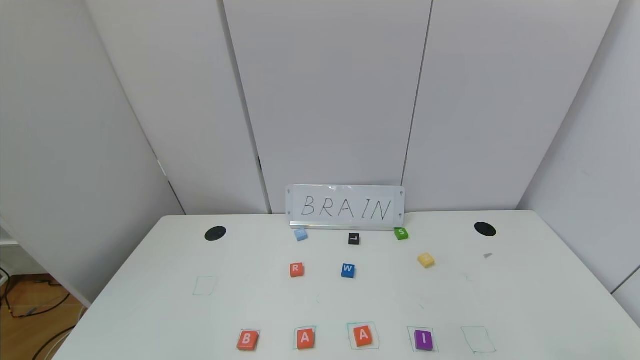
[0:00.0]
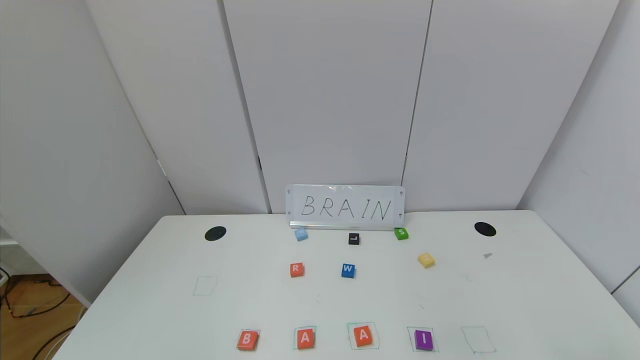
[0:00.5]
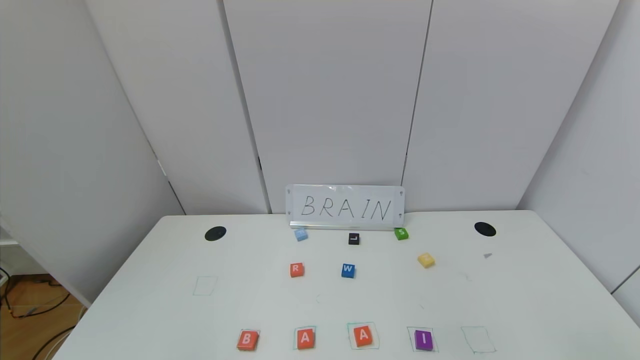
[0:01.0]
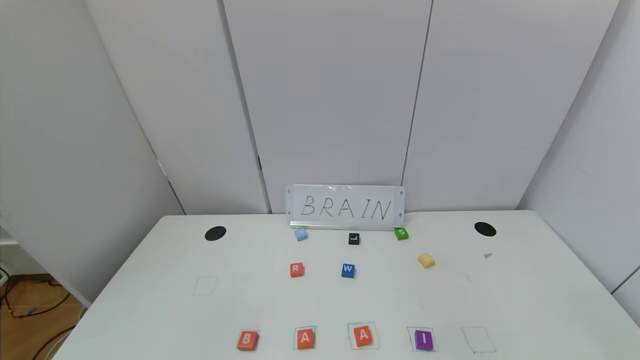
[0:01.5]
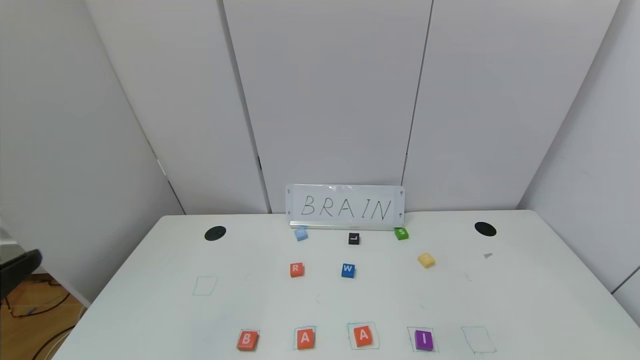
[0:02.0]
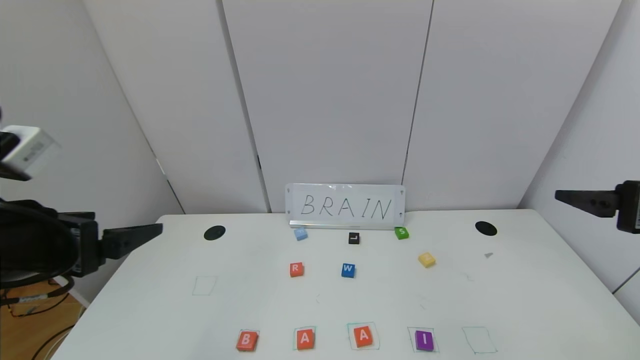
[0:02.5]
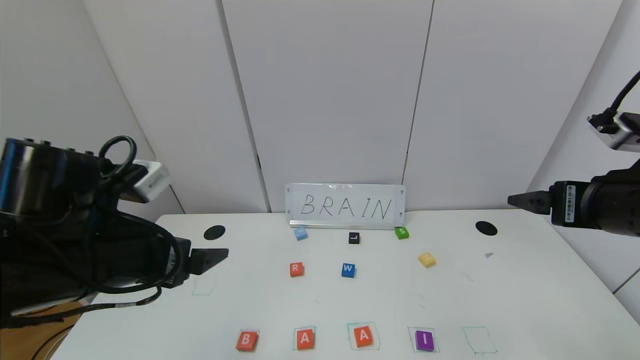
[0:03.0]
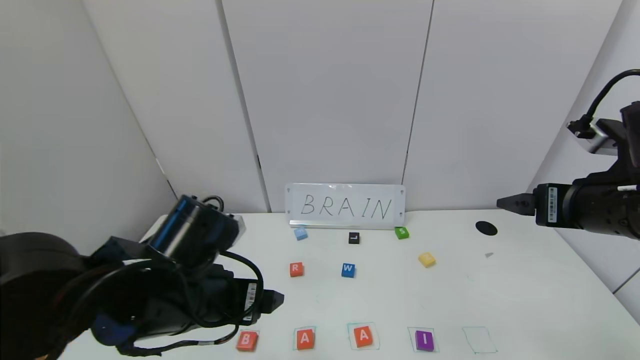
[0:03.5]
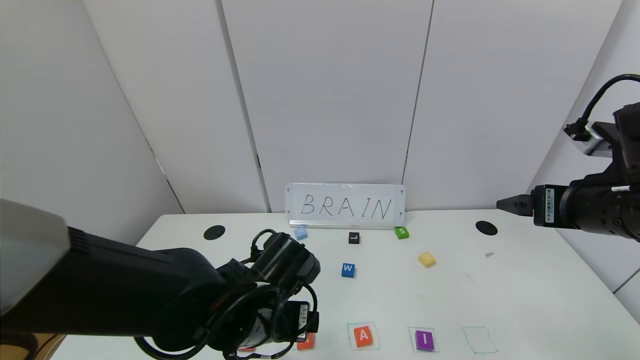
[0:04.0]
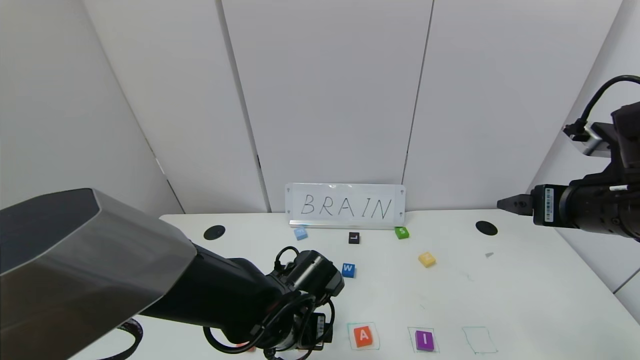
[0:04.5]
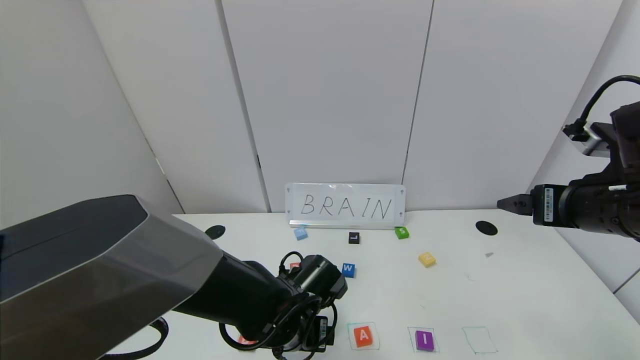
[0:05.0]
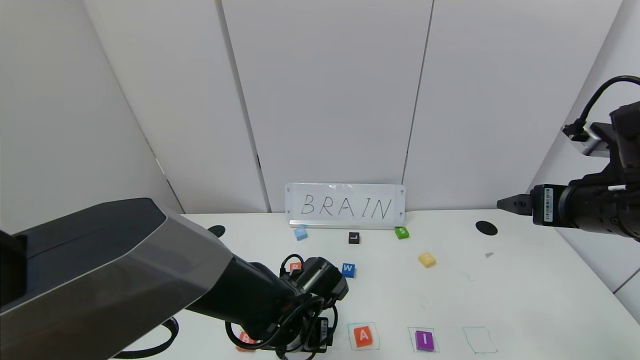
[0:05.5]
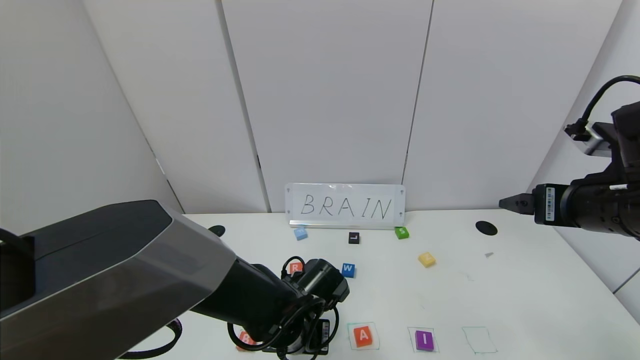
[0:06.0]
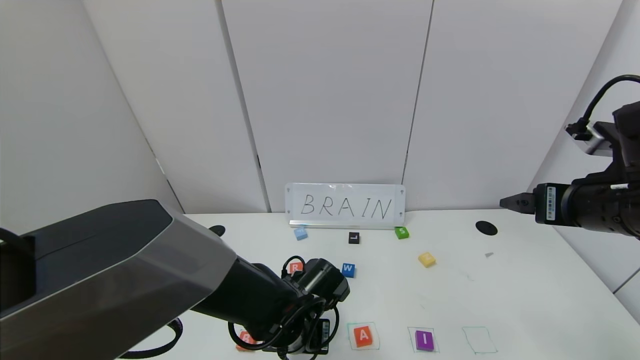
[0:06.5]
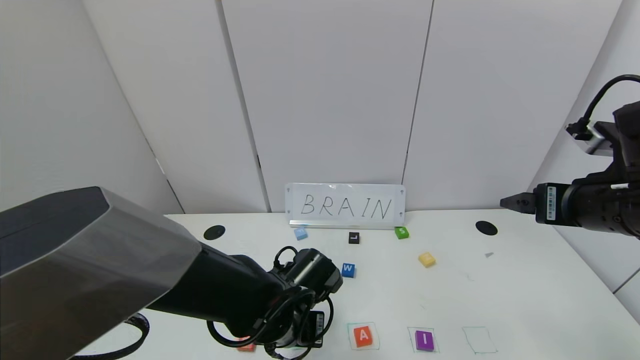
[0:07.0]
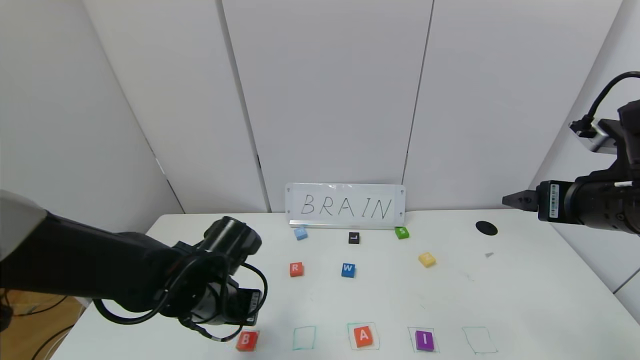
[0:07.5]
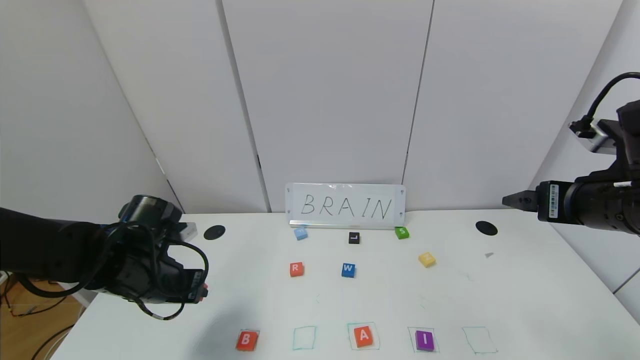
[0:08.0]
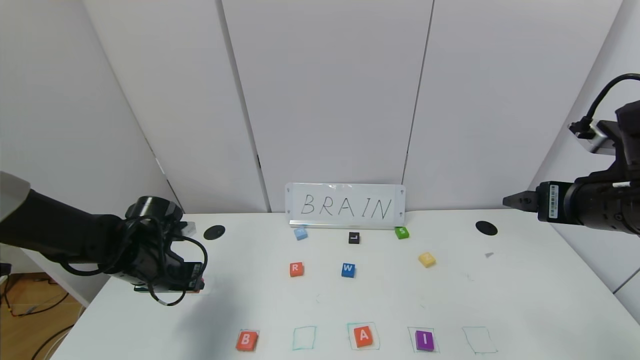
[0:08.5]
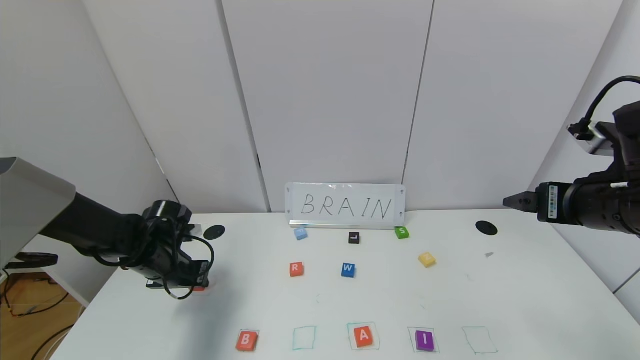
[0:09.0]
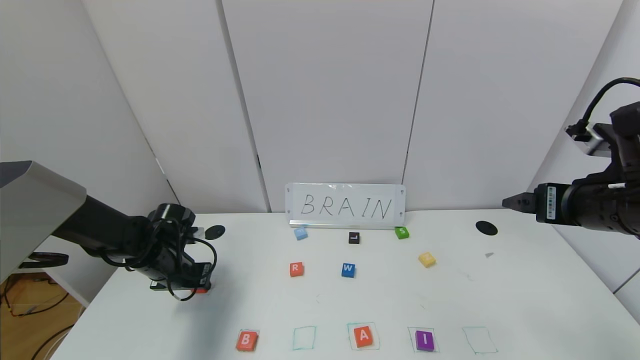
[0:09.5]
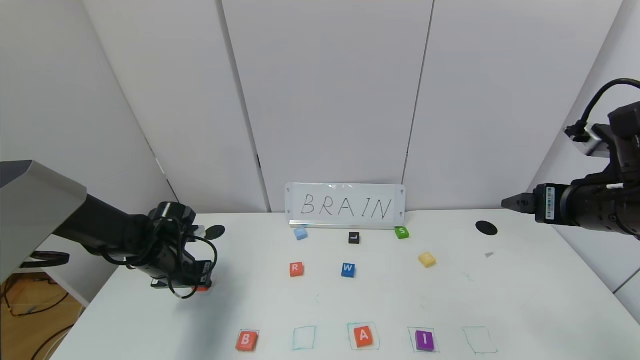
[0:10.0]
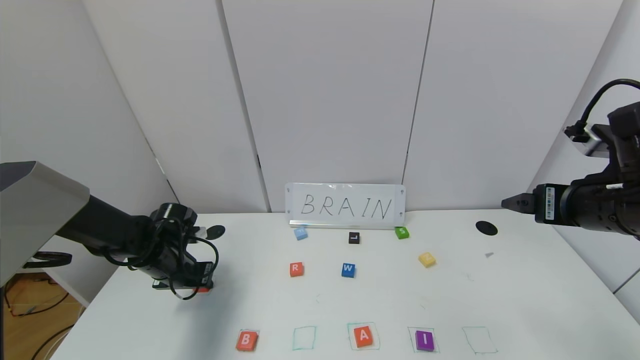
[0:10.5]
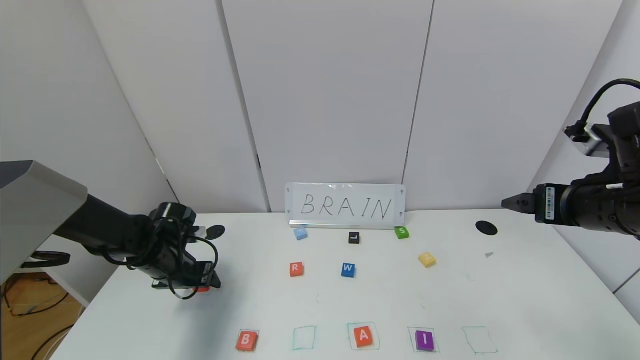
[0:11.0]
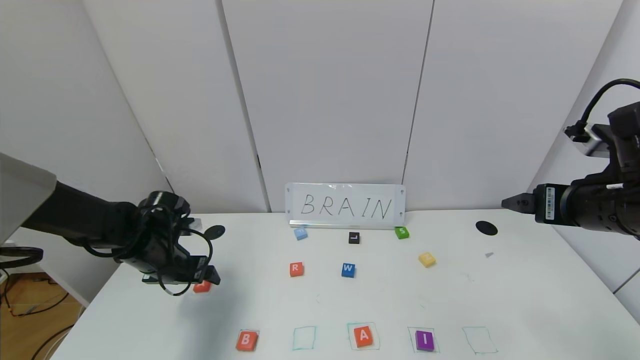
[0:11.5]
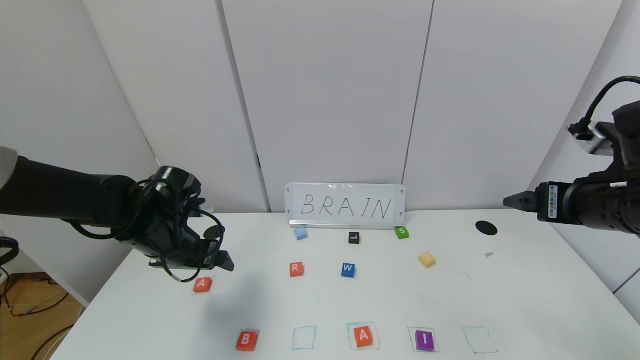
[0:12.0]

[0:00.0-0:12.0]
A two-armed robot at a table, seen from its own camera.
Task of the whole recording: use the gripper to find blocks with the letters b, a, a, and i on the table and arrange them into BAAI, then find r and N and turn the arranged baai into brian.
Step, 0:00.0 to 0:11.0: Move the block A out of the second location.
0:02.0 to 0:04.0: The left gripper is displaced to the right, forward and downward by about 30 cm; the right gripper goes about 15 cm forward.
0:04.0 to 0:06.0: The left gripper shifts about 5 cm downward, and closes its fingers.
0:06.0 to 0:08.0: The left gripper is displaced to the left and upward by about 20 cm.
0:08.0 to 0:10.0: The left gripper heads forward and downward, covering approximately 10 cm.
0:10.0 to 0:12.0: The left gripper moves upward, approximately 10 cm, and opens up.

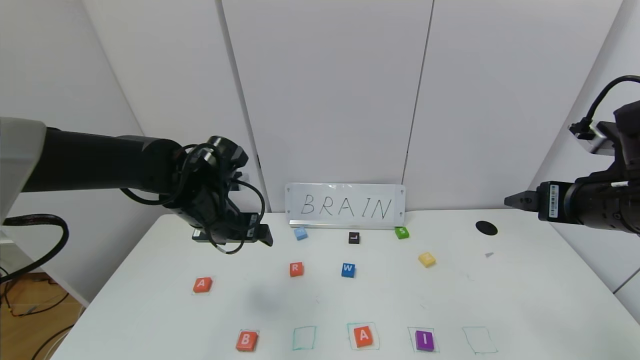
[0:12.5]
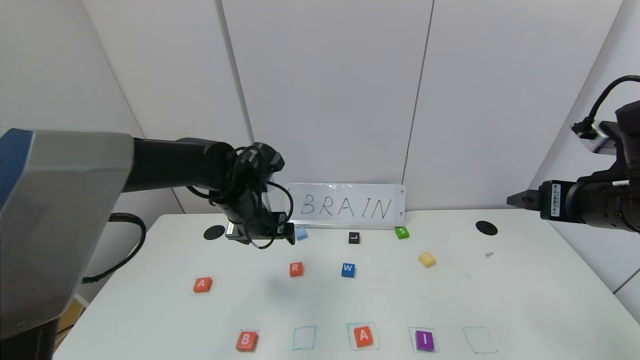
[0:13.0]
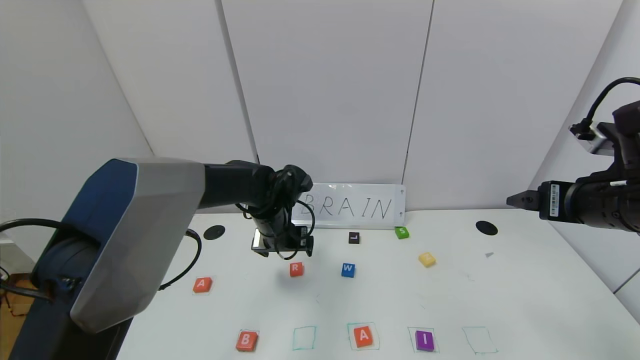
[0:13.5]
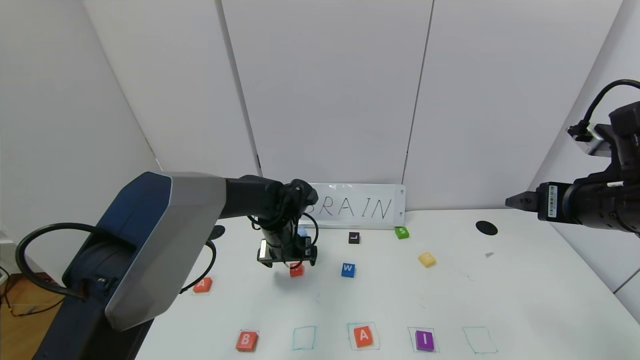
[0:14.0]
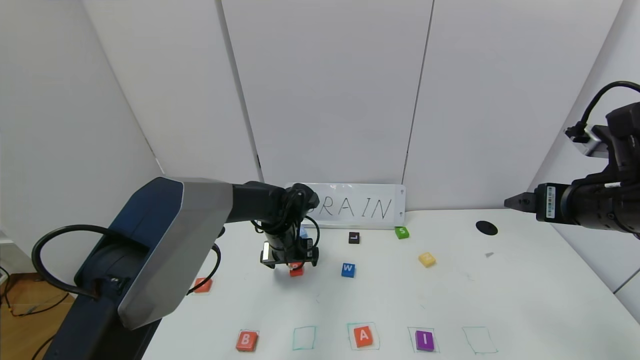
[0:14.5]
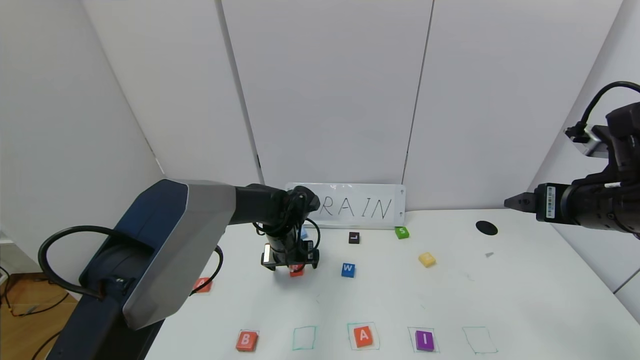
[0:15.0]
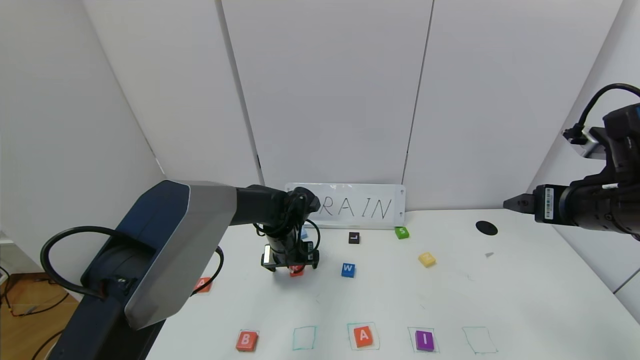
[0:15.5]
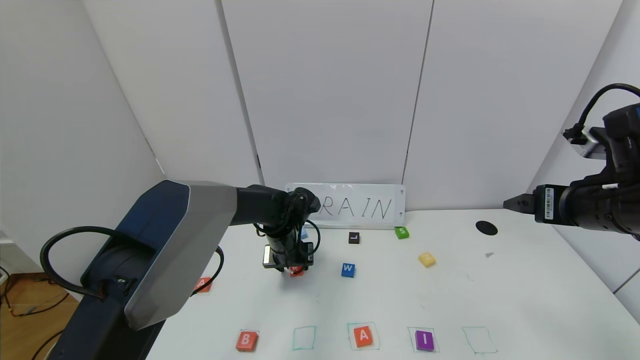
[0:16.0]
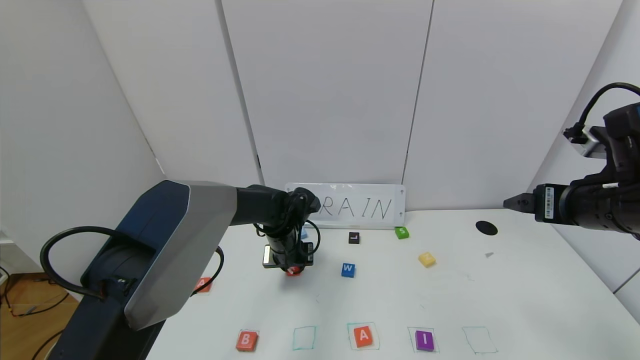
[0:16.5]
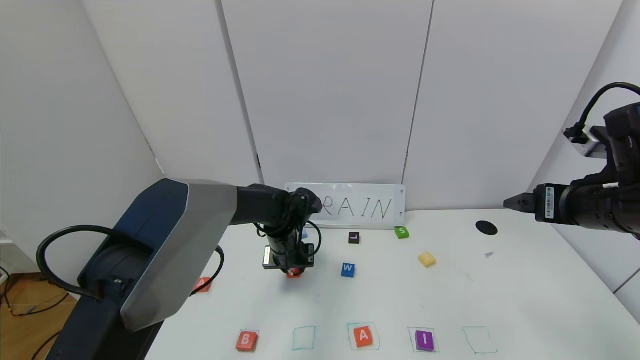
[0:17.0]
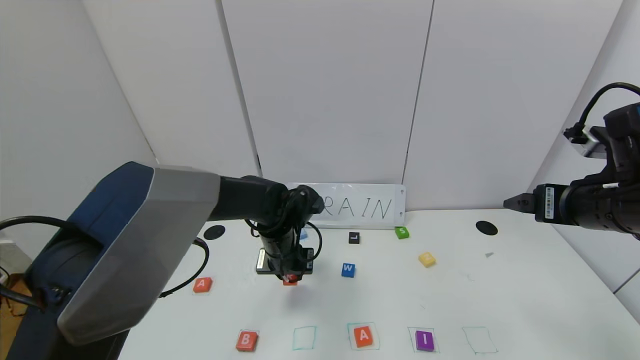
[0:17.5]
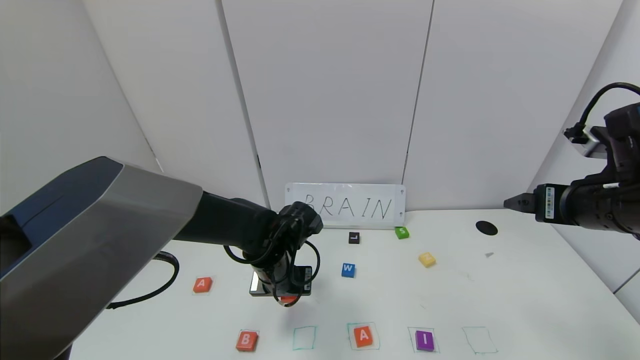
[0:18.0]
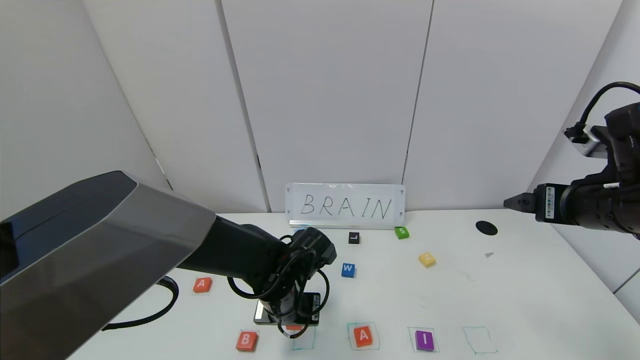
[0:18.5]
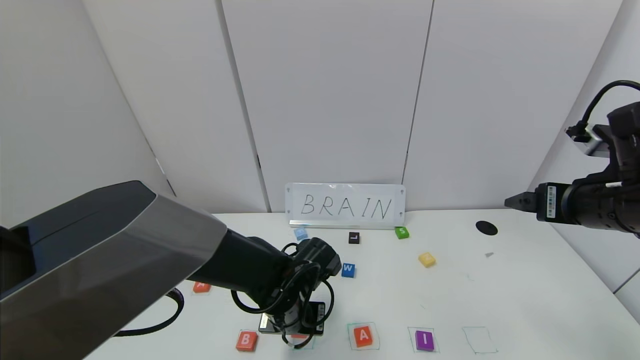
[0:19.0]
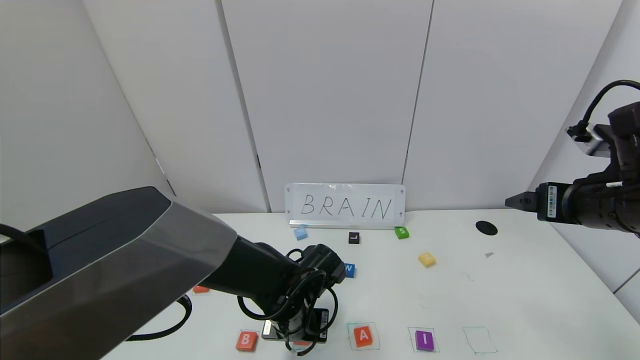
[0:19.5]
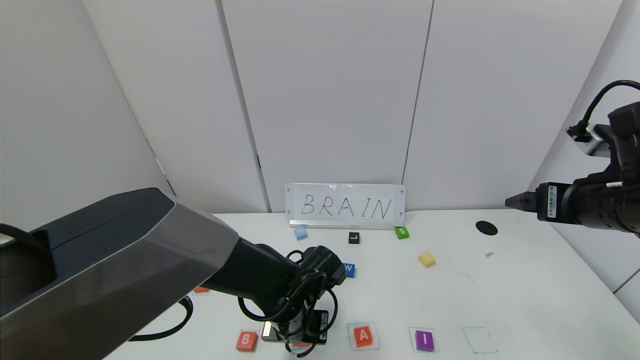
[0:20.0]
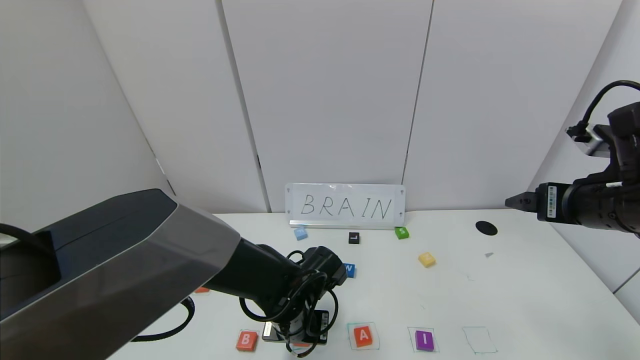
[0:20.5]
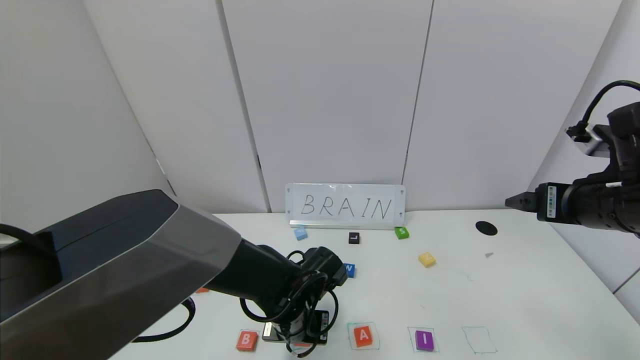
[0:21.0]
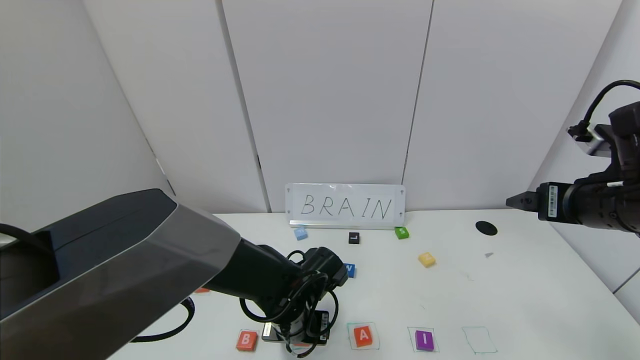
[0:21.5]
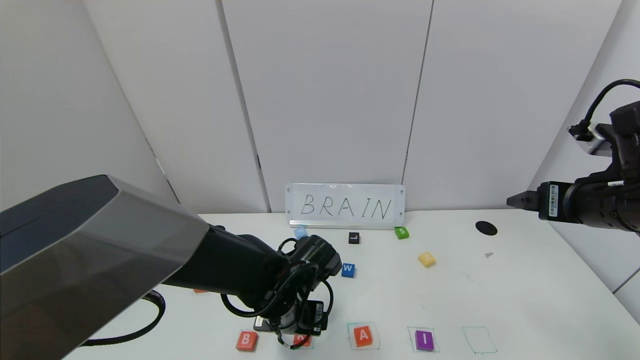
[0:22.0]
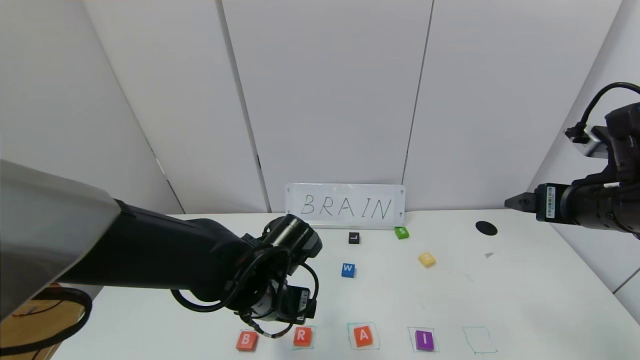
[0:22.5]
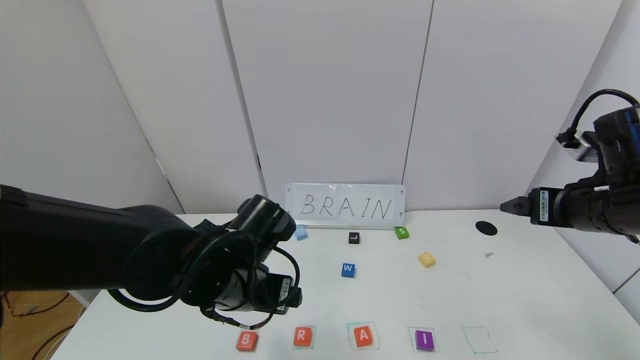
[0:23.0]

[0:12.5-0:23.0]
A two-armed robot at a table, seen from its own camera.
Task of the whole recording: use the gripper to find blocks with the letters b, a, a, and i on the table and arrange them into BAAI, then find r and N and turn the arranged baai into brian.
Step, 0:12.5 to 0:21.0: Place the block R in the second location.
0:12.5 to 0:14.5: The left gripper moves downward, to the right and forward, approximately 15 cm.
0:14.5 to 0:16.5: The left gripper closes up.
0:16.5 to 0:19.0: The left gripper is displaced backward by about 15 cm.
0:19.0 to 0:21.0: The grippers make only small movements.
0:21.0 to 0:23.0: The left gripper heads upward and to the left, covering roughly 15 cm, and opens.
